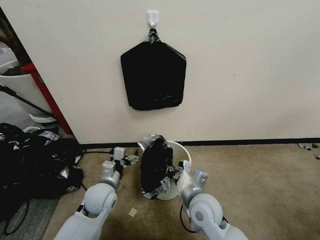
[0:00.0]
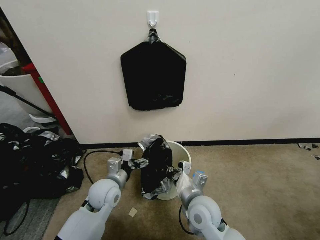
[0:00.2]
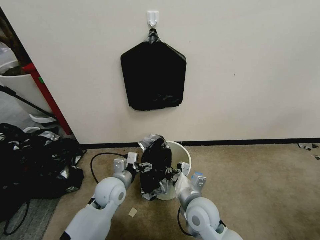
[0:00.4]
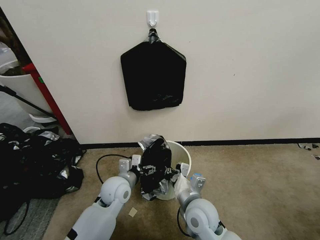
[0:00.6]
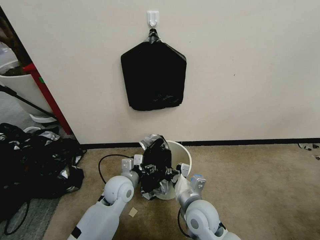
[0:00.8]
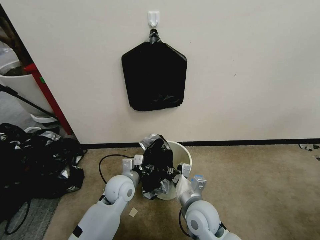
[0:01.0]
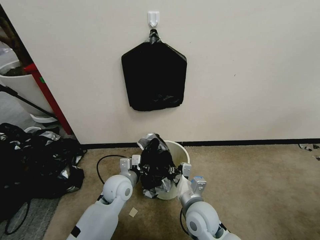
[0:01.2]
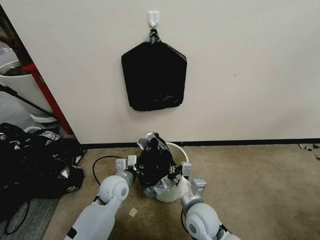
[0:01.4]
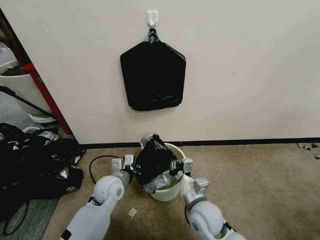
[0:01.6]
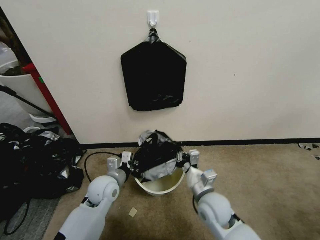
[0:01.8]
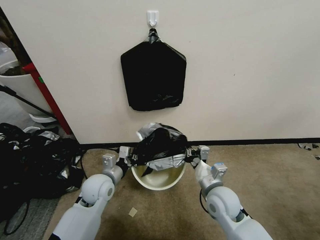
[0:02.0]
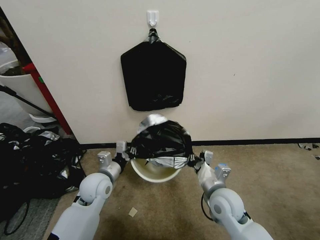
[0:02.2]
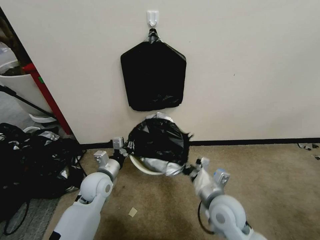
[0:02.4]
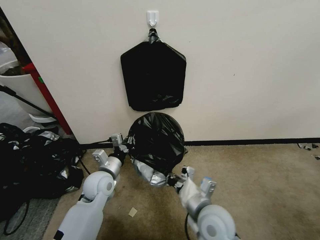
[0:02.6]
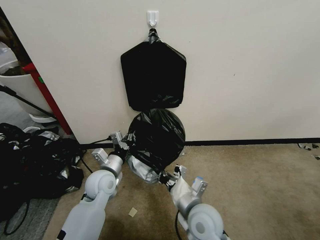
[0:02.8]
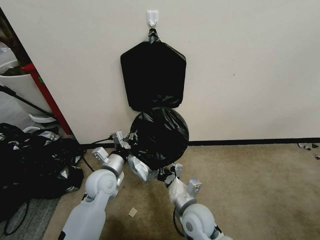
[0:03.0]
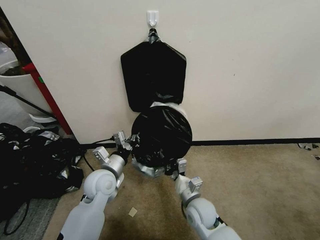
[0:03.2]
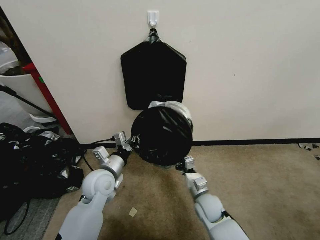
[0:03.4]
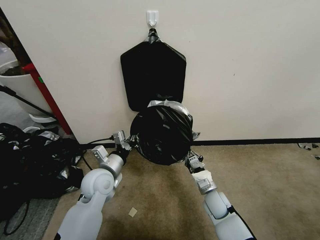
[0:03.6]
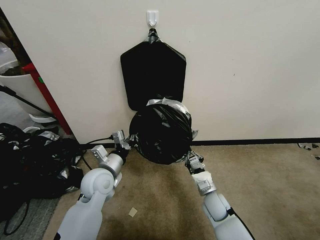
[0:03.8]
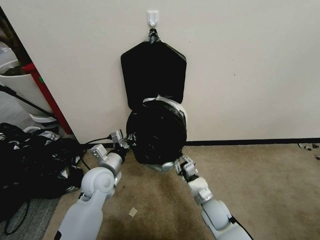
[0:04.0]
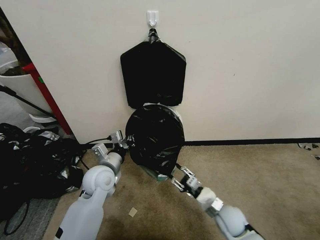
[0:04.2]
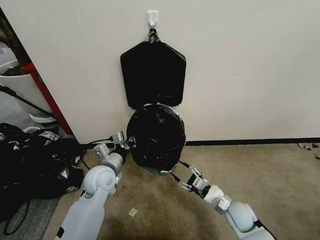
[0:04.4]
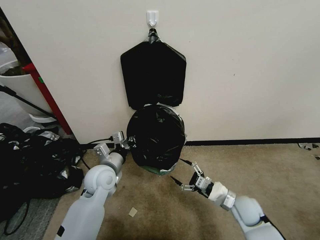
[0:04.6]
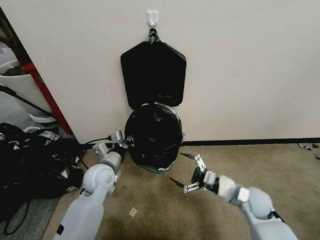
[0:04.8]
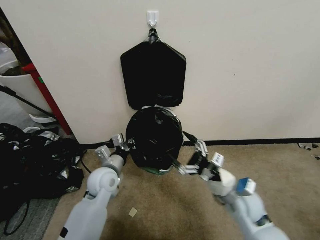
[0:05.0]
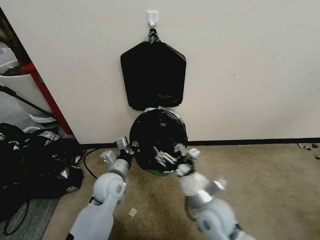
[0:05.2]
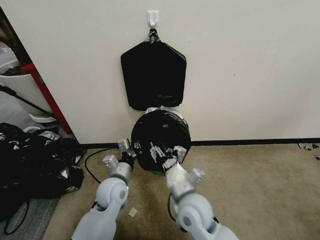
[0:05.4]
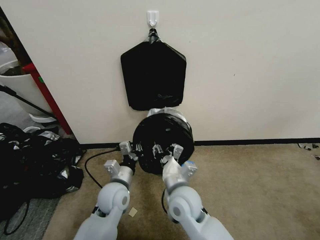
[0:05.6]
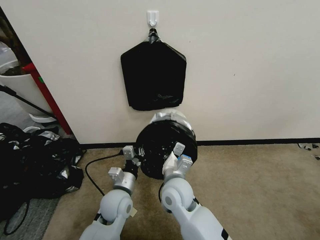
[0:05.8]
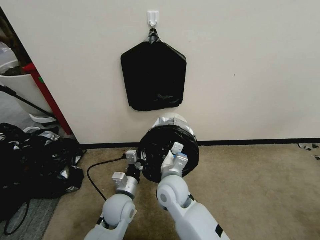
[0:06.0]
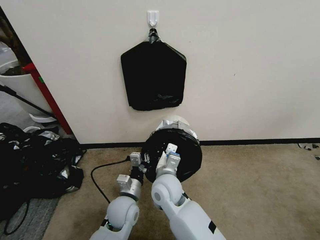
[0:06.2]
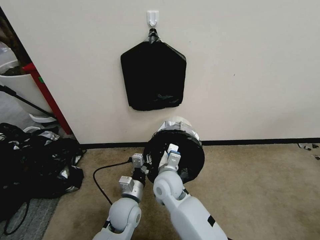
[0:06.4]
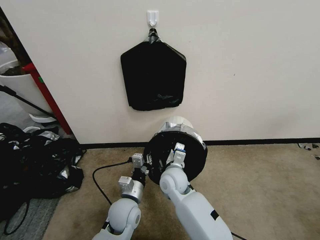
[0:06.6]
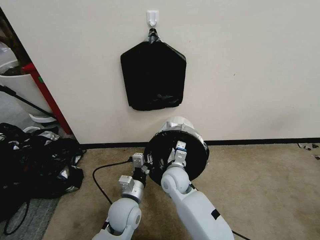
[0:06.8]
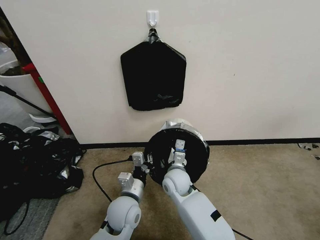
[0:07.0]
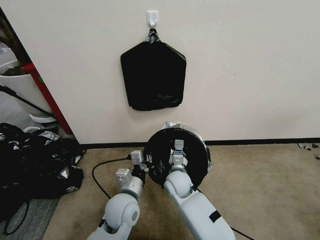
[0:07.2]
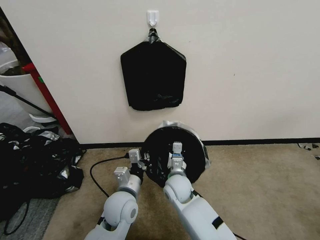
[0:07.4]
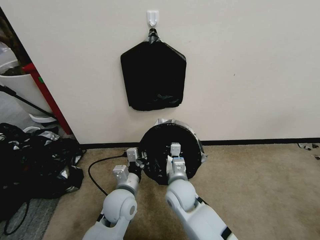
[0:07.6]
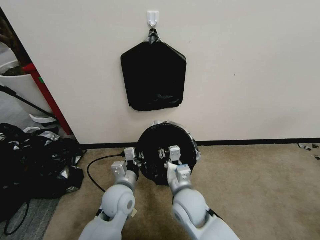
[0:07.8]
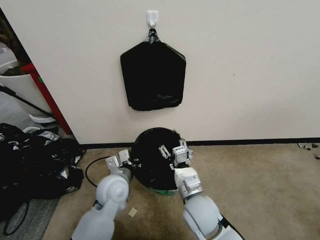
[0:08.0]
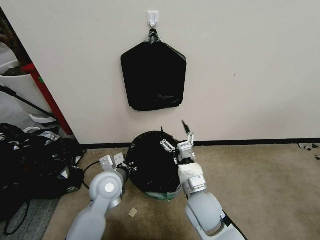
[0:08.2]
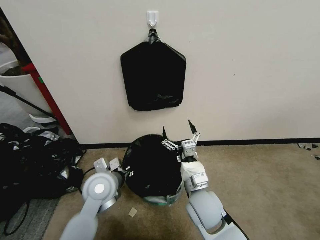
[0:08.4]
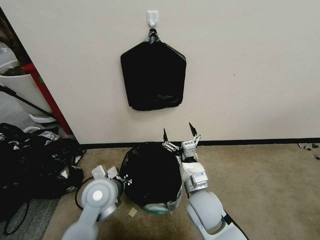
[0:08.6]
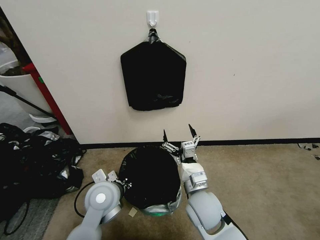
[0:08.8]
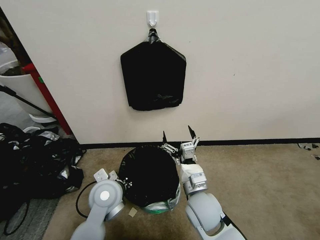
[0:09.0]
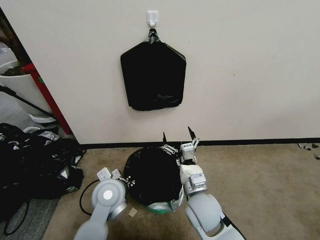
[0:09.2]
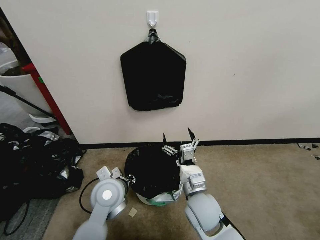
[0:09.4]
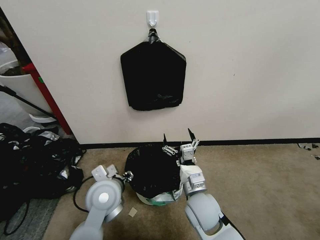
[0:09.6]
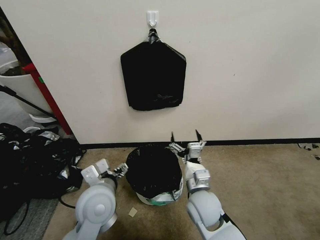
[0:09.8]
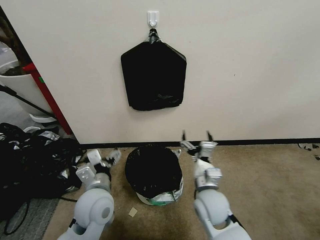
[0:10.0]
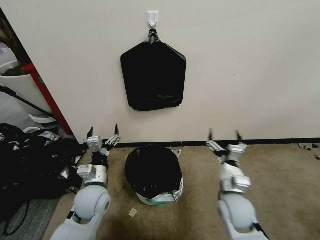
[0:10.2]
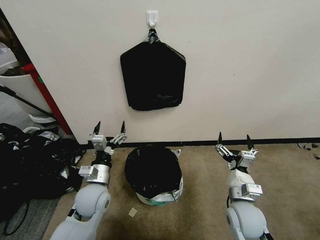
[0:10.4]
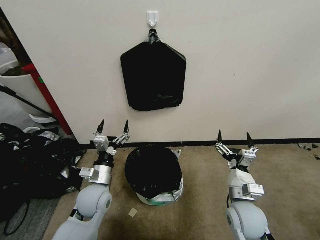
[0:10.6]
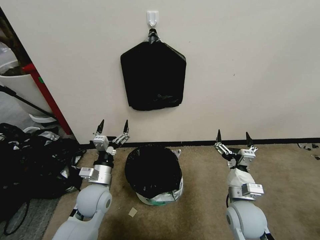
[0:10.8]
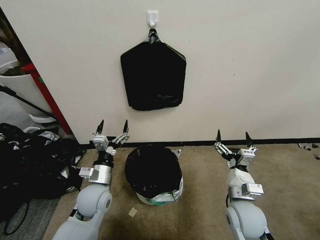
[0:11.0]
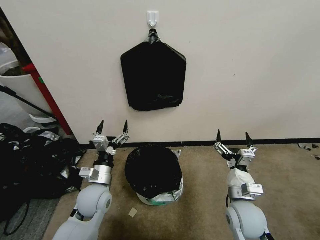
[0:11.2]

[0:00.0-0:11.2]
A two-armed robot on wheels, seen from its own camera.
Task of the whole recording: Place a trash bag onto the trash bin.
0:00.0 to 0:01.6: The left gripper closes its fingers.
0:01.6 to 0:03.2: The left gripper shifts by roughly 5 cm; the right gripper moves downward, some 5 cm.
0:03.2 to 0:04.8: The right gripper shifts roughly 15 cm to the right, and opens its fingers.
0:04.8 to 0:06.4: The left gripper goes about 15 cm to the right, backward and downward, while the right gripper heads to the left, covering approximately 30 cm, and closes its fingers.
0:06.4 to 0:08.0: The left gripper heads upward, covering roughly 10 cm; the right gripper shifts approximately 10 cm to the right and backward, and opens.
0:08.0 to 0:09.6: The left gripper opens. The right gripper opens.
0:09.6 to 0:11.2: The left gripper moves downward, some 5 cm, and opens up, while the right gripper heads to the right, covering approximately 10 cm.

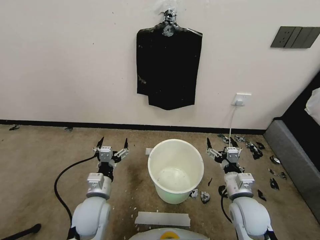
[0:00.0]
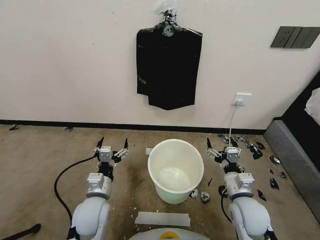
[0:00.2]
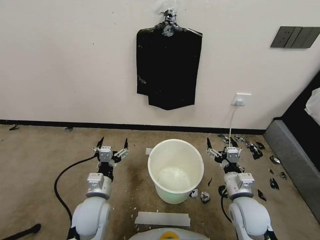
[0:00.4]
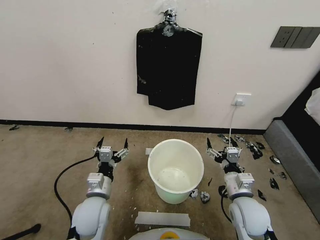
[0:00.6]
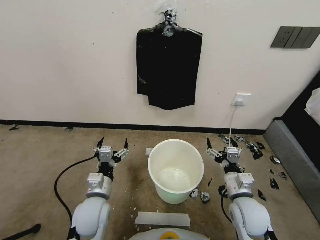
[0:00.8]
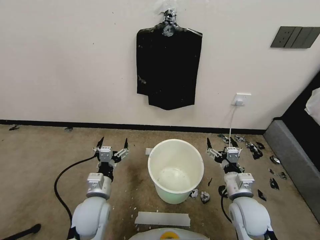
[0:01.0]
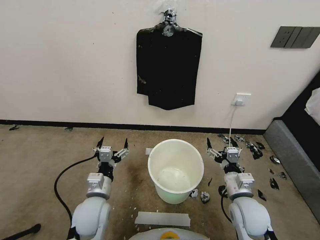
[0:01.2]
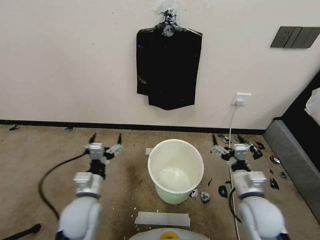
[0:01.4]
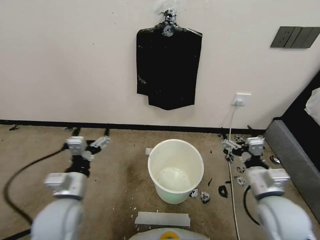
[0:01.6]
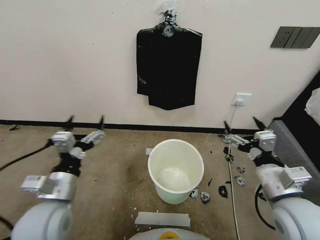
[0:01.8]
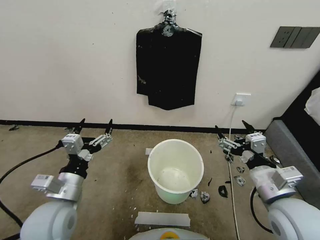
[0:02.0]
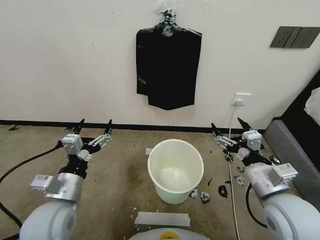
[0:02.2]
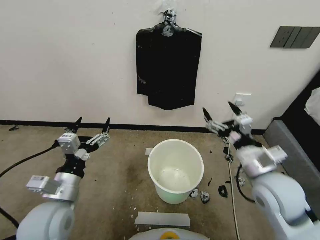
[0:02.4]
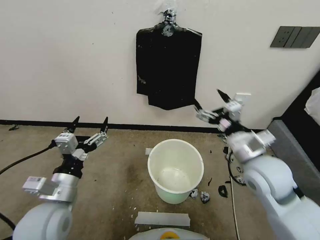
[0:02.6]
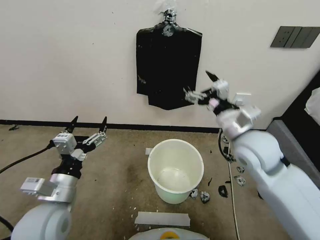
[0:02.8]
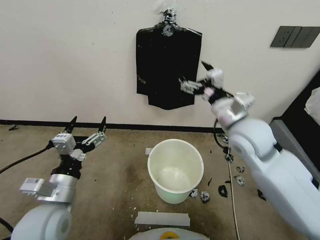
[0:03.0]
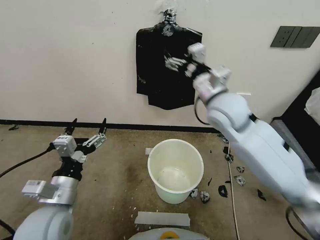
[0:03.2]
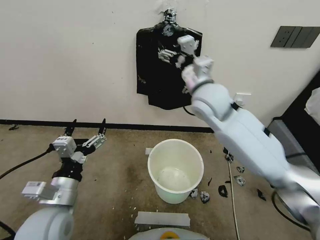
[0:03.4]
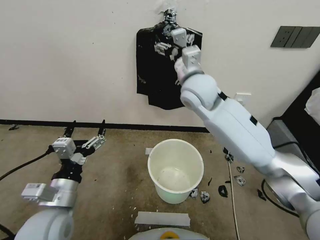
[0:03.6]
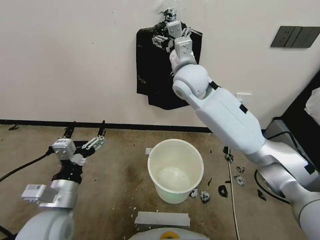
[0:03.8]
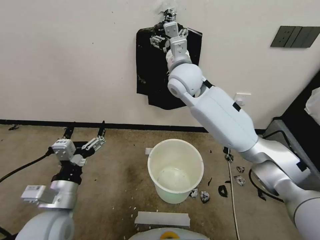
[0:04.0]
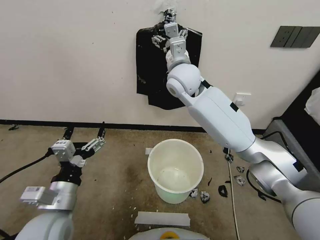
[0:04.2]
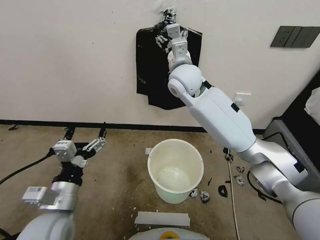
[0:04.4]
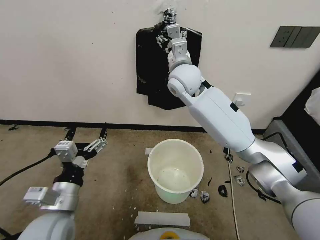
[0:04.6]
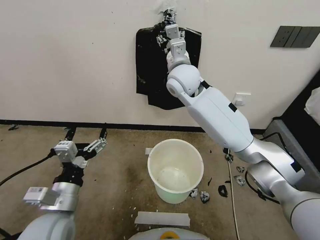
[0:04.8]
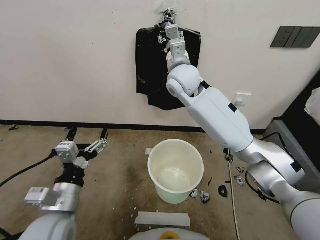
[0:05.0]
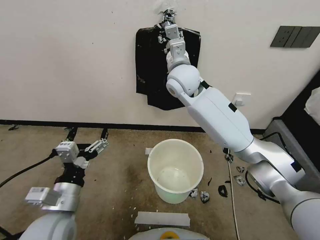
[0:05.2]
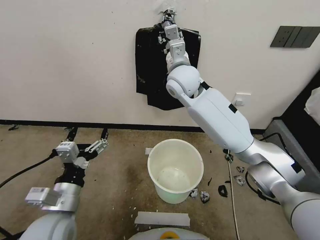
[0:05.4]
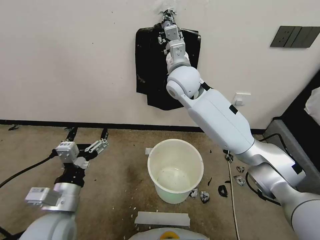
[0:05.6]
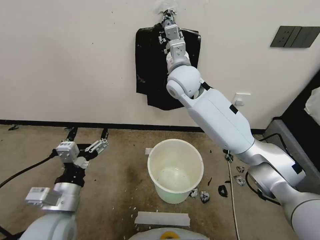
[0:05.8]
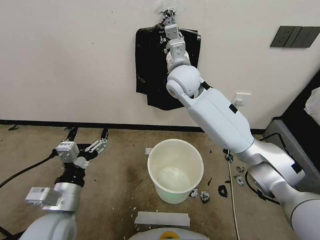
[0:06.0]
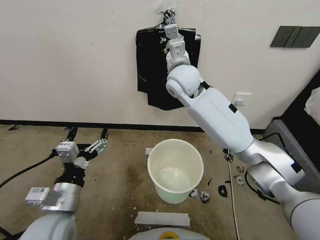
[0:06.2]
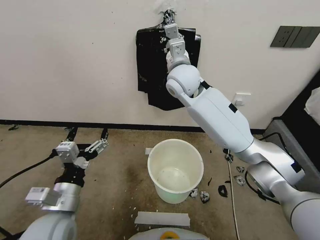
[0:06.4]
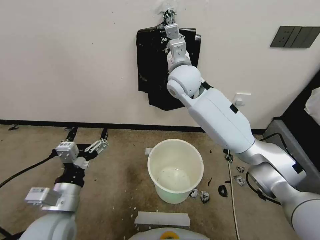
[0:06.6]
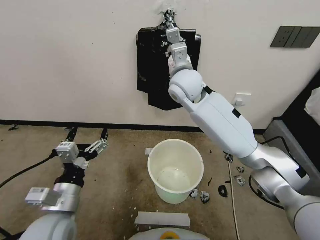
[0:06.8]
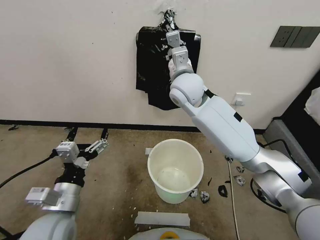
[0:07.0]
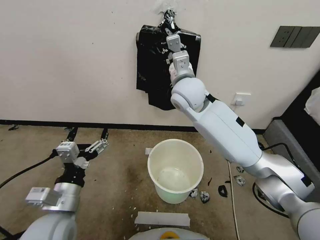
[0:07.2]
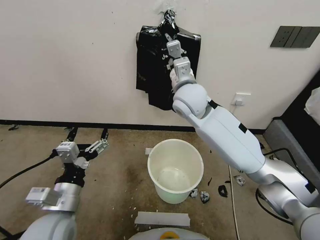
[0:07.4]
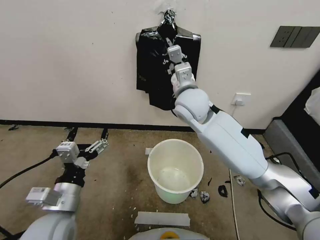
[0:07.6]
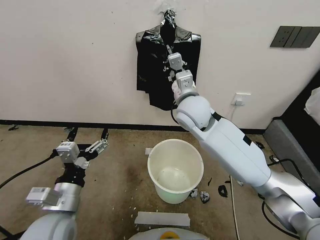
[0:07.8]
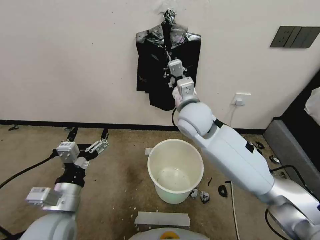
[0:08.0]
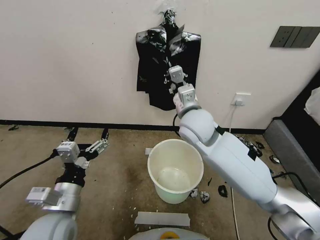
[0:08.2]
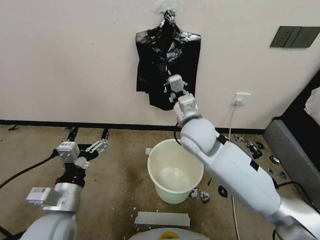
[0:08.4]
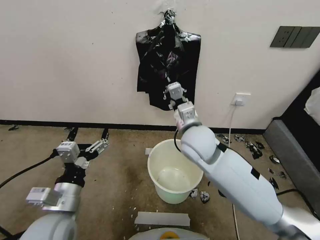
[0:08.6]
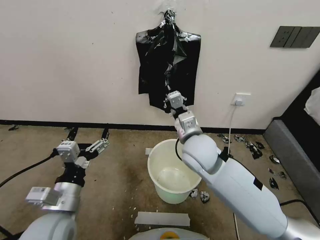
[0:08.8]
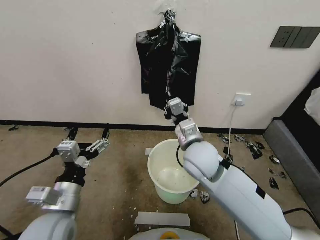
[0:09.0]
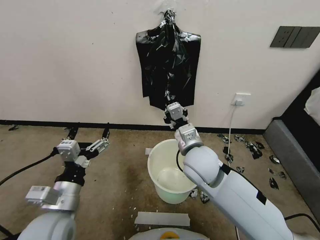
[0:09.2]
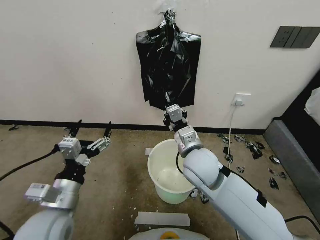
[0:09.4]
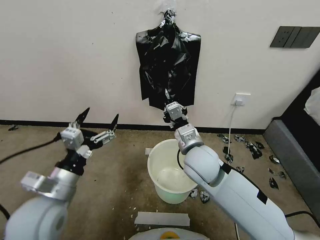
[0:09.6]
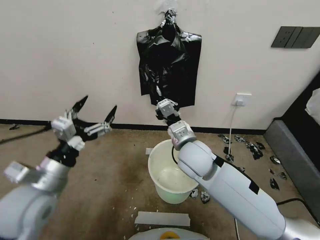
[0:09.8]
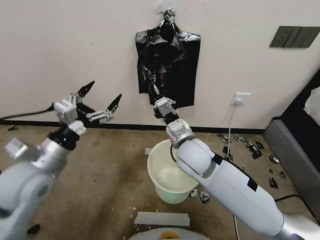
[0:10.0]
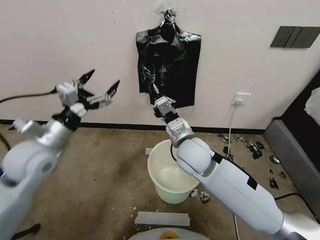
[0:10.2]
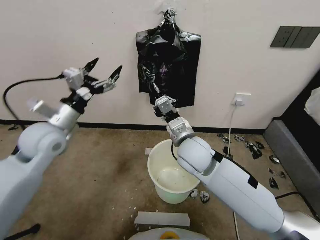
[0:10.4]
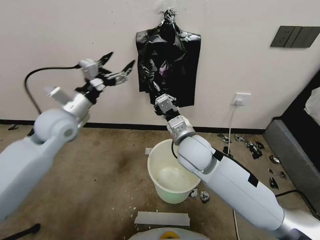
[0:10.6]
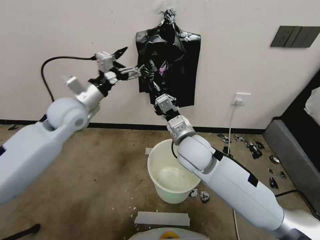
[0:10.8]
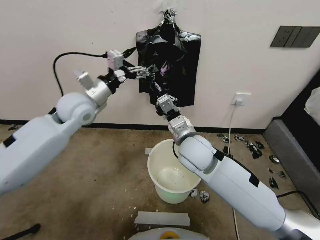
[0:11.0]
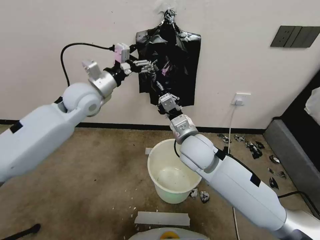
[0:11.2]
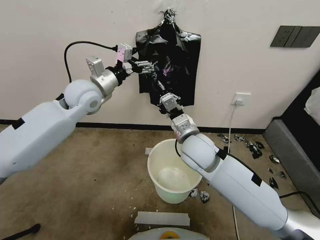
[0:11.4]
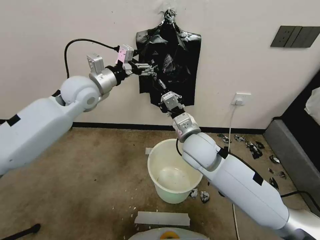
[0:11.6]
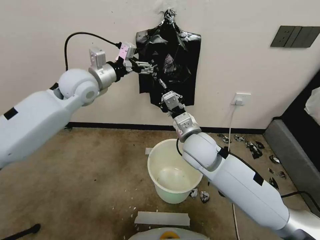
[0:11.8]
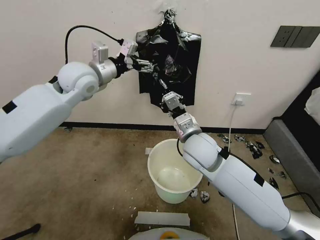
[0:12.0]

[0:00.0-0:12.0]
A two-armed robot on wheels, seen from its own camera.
Task of the whole recording: Place a trash bag onto the trash bin.
0:01.6 to 0:03.0: The right gripper travels forward, upward and to the left by some 20 cm.
0:03.0 to 0:04.4: The right gripper travels forward, to the left and upward by roughly 20 cm.
0:04.4 to 0:06.0: The right gripper closes up.
0:06.0 to 0:07.6: The right gripper heads backward, covering approximately 5 cm.
0:07.6 to 0:09.0: The right gripper is displaced backward and downward by approximately 15 cm.
0:09.0 to 0:10.4: The left gripper moves forward and upward, some 20 cm.
0:10.4 to 0:12.0: The left gripper goes some 20 cm forward, upward and to the right.
